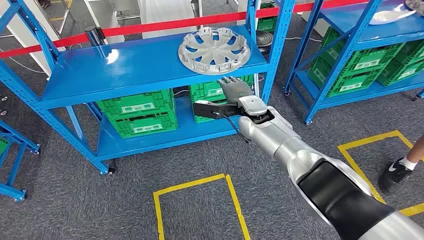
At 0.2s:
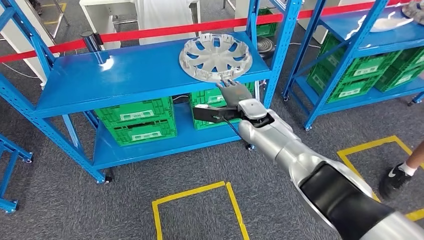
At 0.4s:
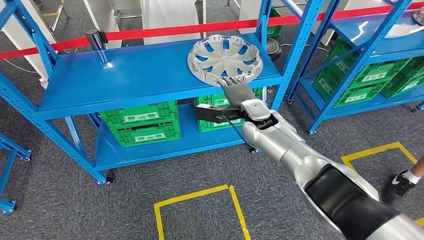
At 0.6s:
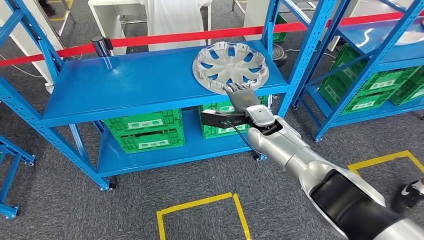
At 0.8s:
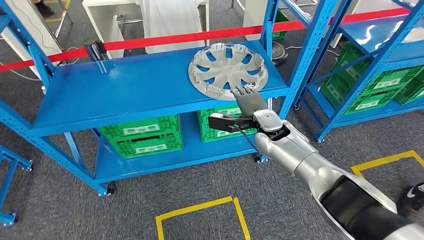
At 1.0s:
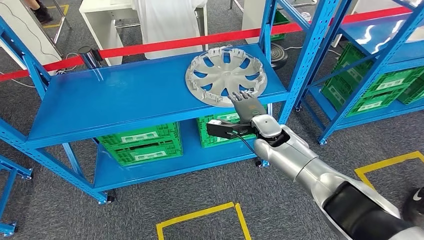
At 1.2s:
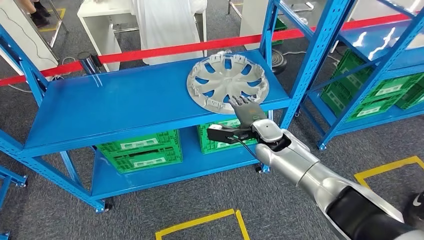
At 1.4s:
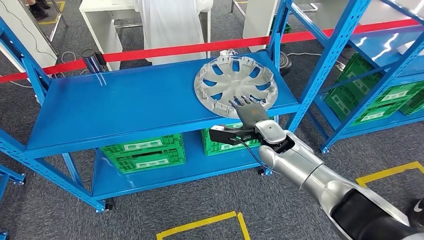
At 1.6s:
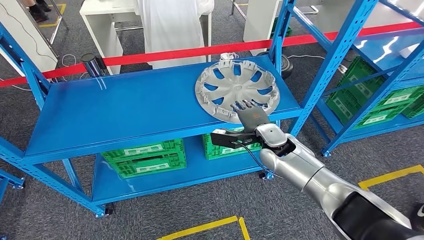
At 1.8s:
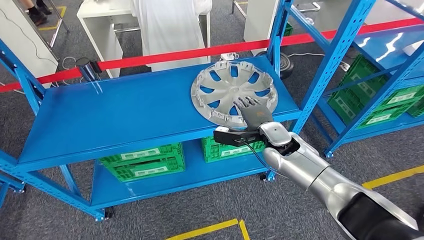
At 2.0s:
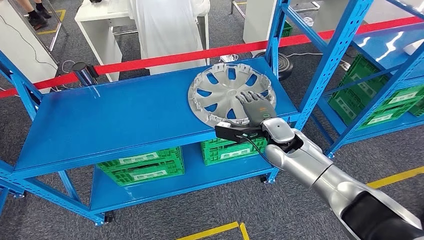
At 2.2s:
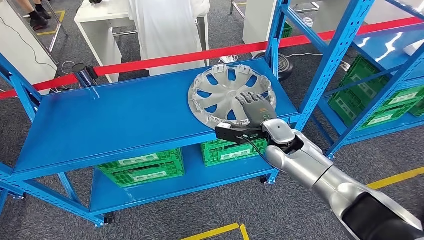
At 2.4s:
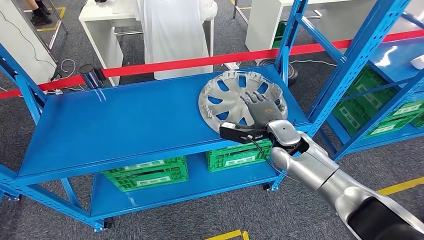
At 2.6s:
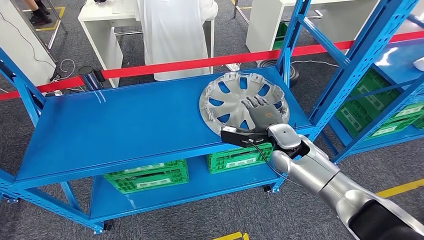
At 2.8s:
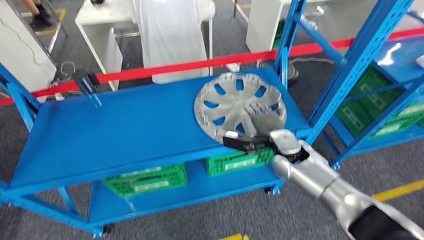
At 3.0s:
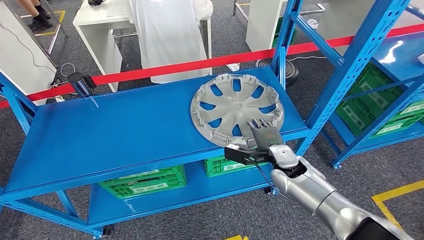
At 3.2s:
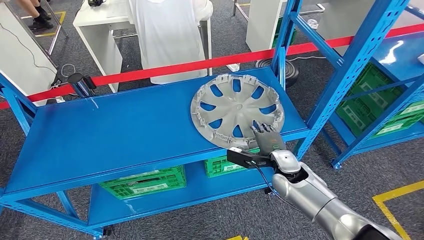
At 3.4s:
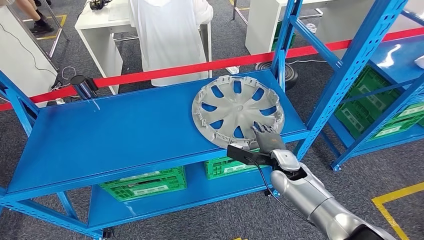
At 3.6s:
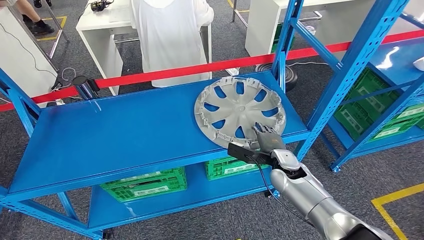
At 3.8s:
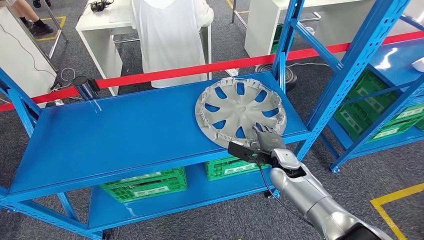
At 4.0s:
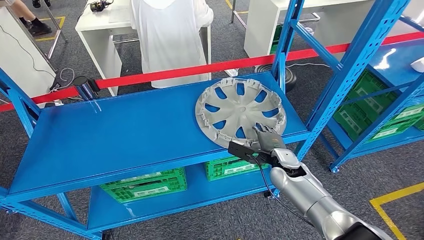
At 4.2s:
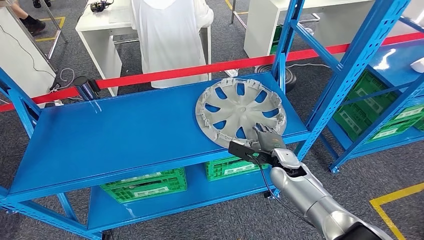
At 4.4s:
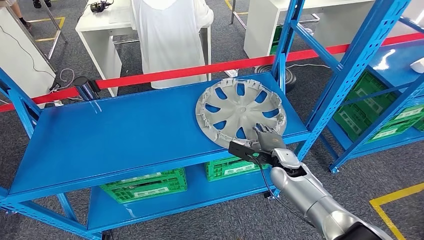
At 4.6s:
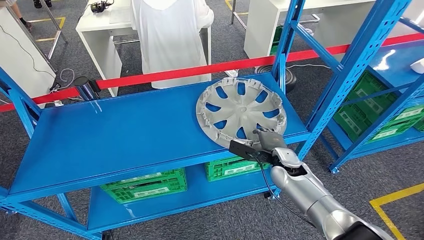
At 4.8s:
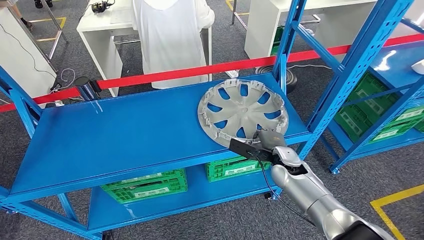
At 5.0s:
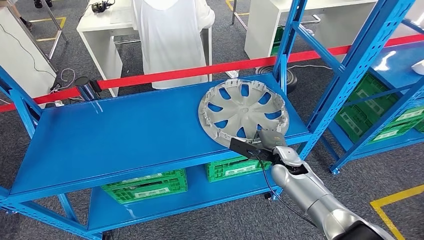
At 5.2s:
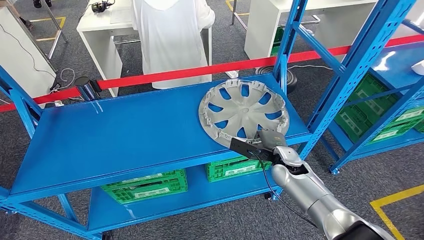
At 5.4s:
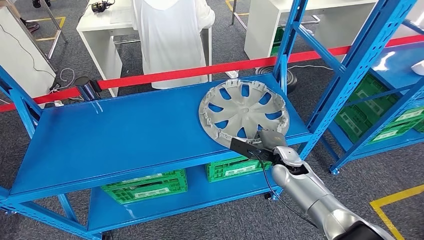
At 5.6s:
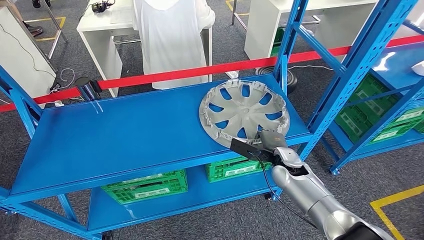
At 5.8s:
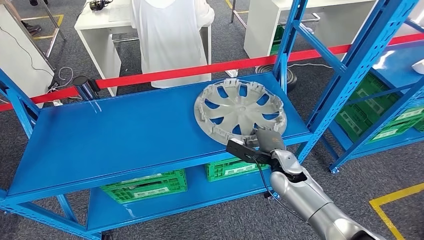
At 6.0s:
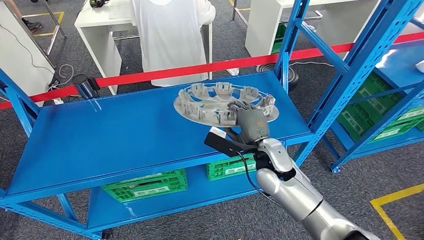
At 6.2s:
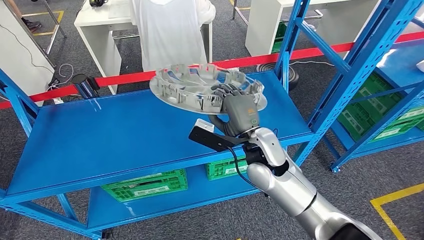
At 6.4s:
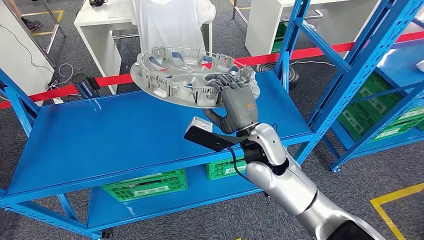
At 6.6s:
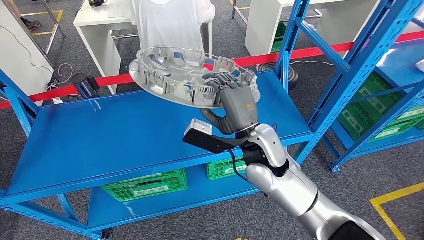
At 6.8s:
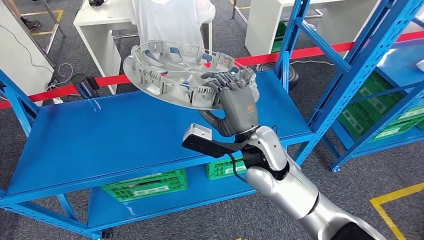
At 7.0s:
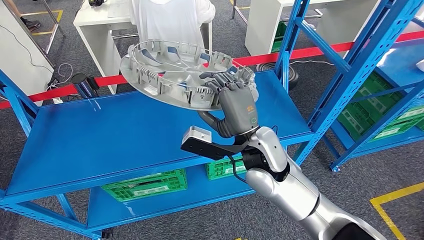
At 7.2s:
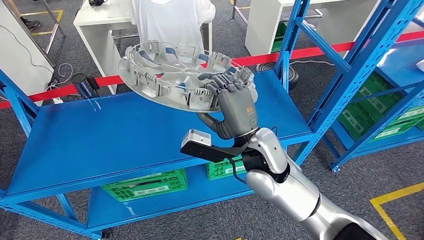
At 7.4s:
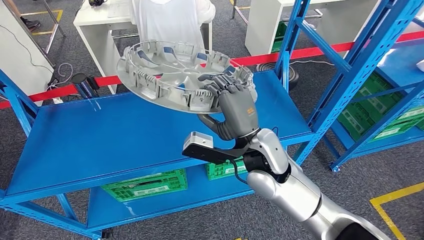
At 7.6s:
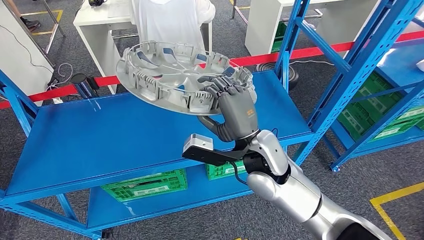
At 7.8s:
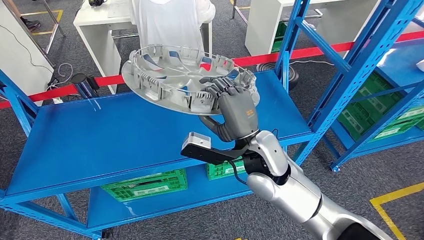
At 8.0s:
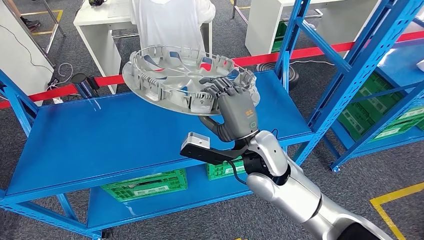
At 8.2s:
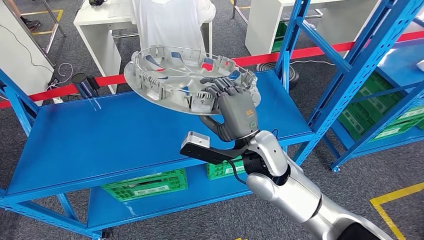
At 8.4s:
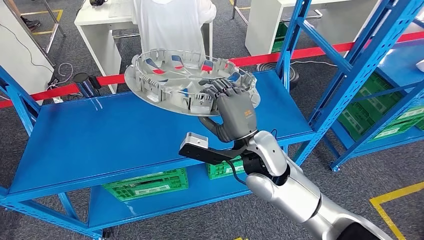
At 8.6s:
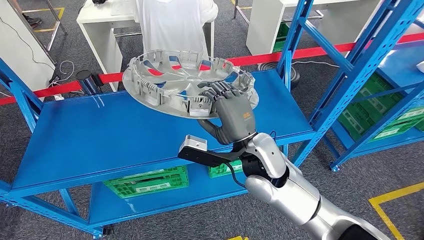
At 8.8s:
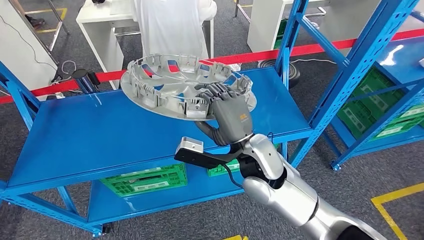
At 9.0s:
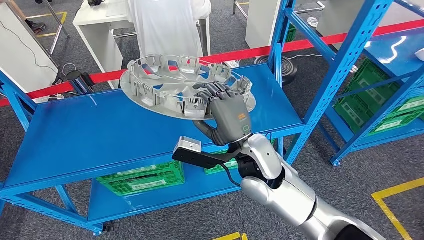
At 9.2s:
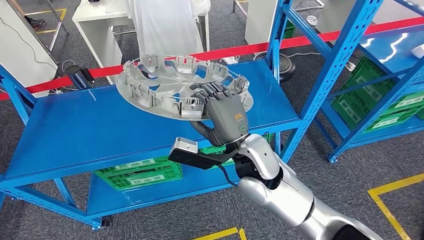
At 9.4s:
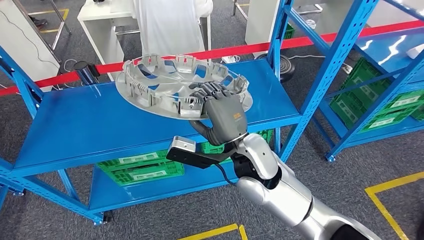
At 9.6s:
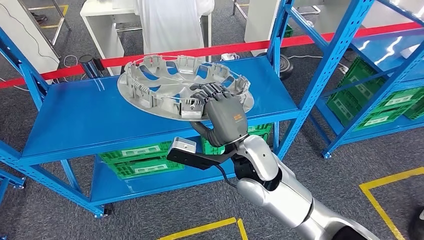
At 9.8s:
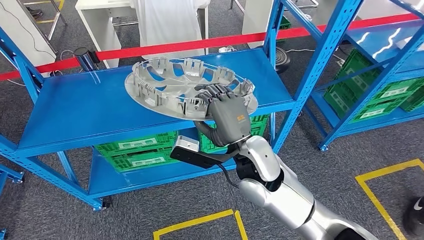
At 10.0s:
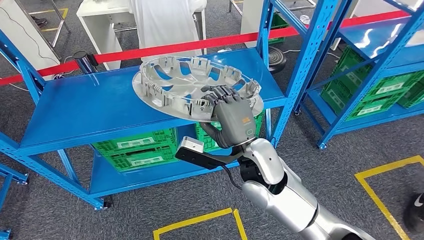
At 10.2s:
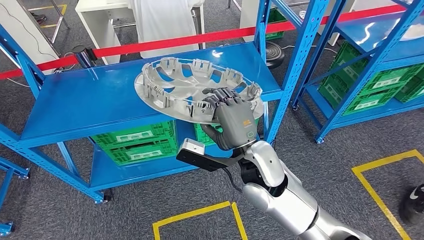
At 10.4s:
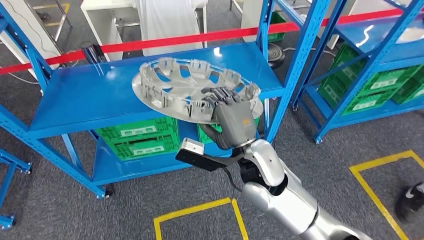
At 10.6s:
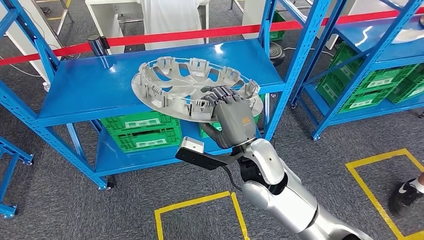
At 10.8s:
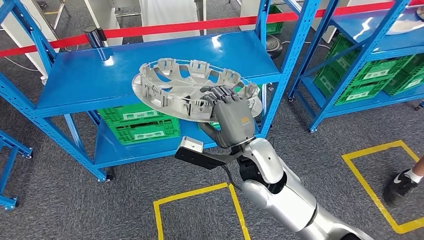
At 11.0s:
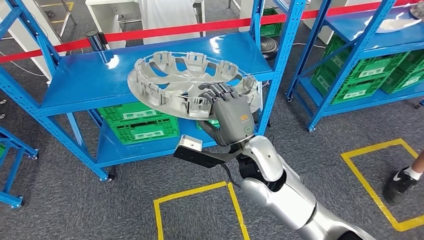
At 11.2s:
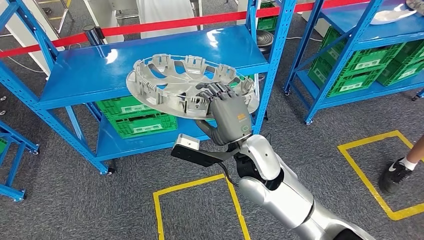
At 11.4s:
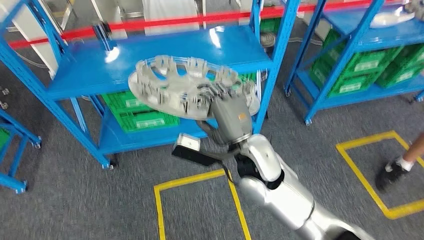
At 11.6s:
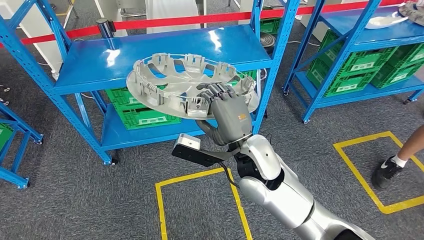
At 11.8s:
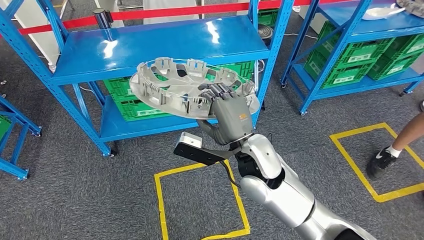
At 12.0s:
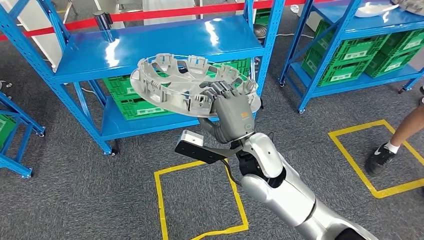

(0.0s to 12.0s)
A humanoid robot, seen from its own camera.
Step, 0.0s - 7.2s: Take small components from the rack.
6.0s - 7.6s: The right hand travels upward and to the left by roughly 10 cm.

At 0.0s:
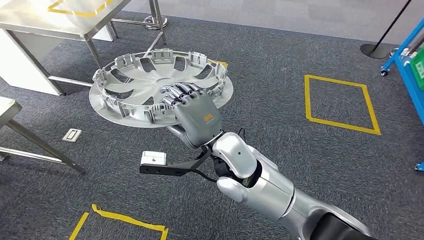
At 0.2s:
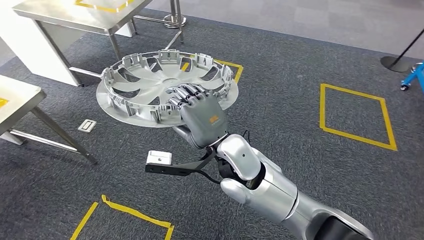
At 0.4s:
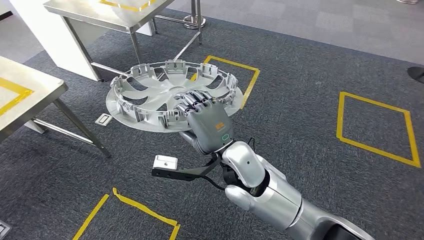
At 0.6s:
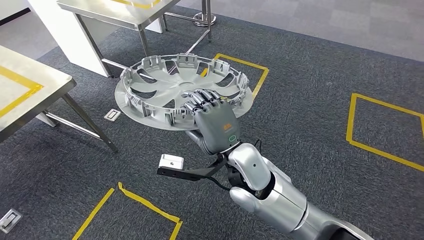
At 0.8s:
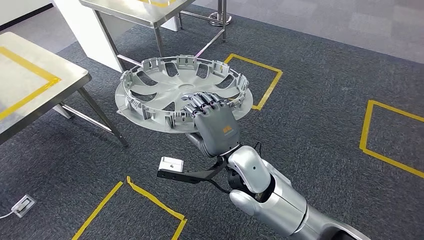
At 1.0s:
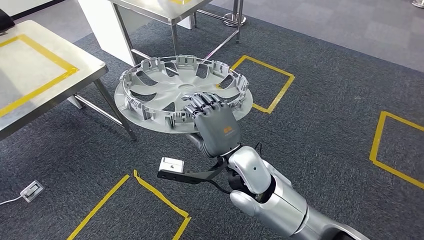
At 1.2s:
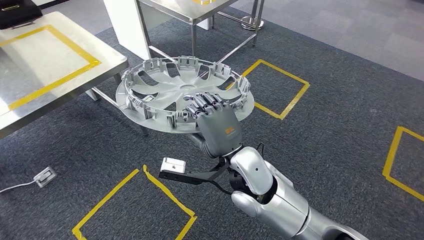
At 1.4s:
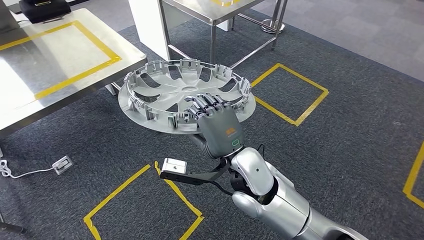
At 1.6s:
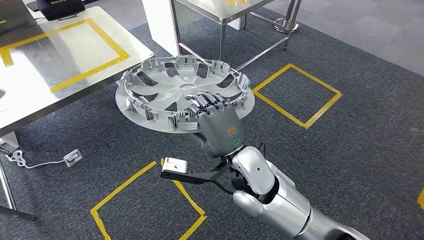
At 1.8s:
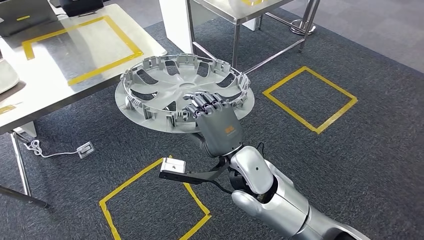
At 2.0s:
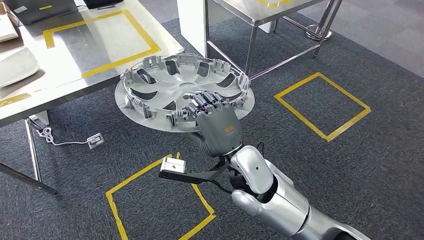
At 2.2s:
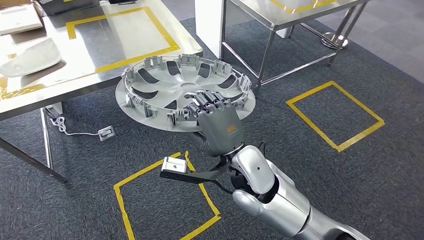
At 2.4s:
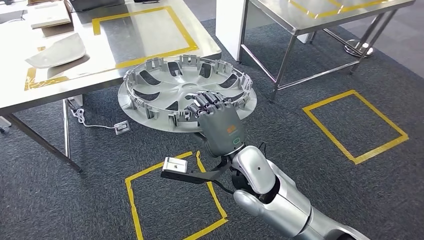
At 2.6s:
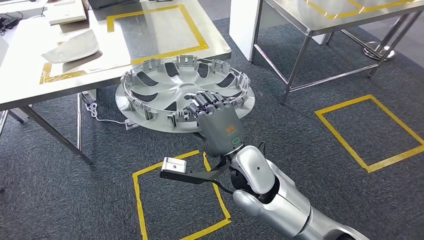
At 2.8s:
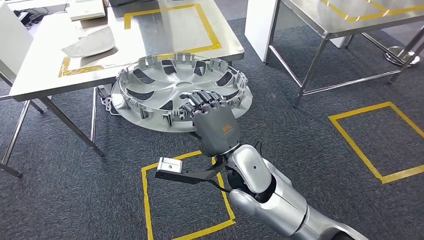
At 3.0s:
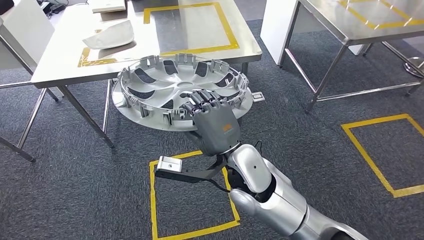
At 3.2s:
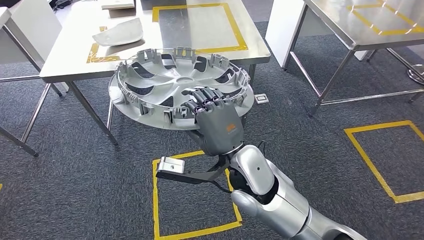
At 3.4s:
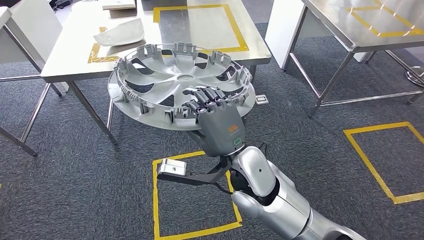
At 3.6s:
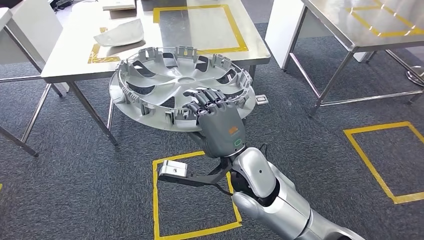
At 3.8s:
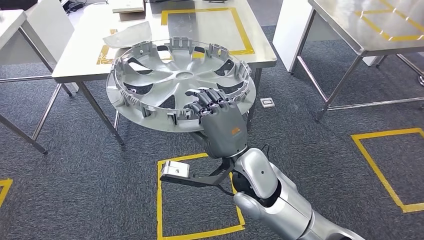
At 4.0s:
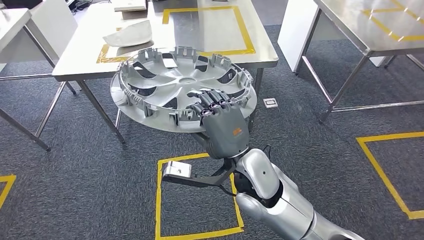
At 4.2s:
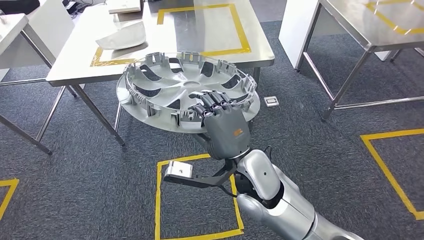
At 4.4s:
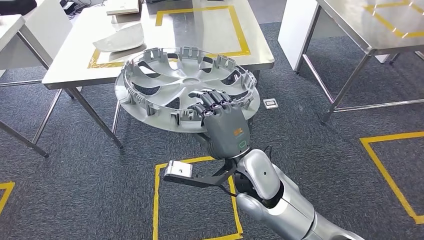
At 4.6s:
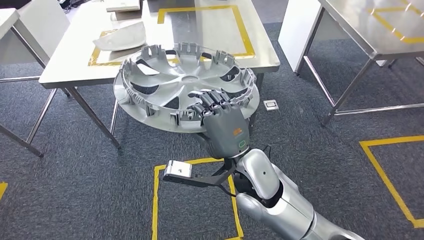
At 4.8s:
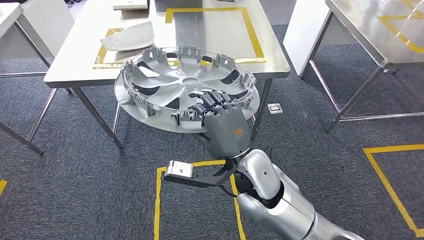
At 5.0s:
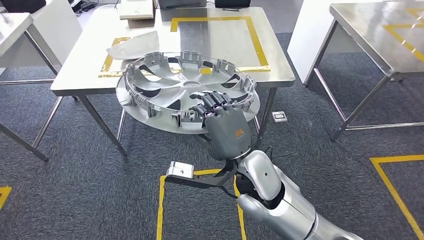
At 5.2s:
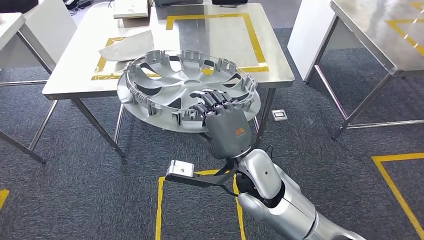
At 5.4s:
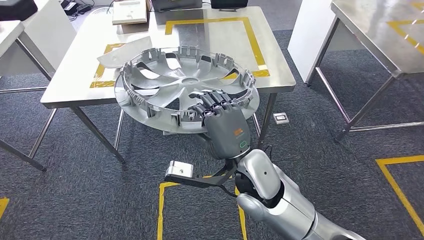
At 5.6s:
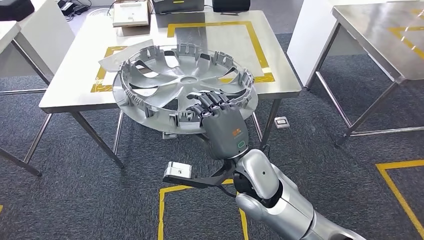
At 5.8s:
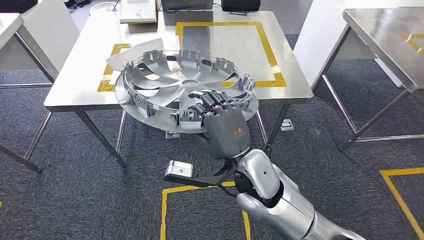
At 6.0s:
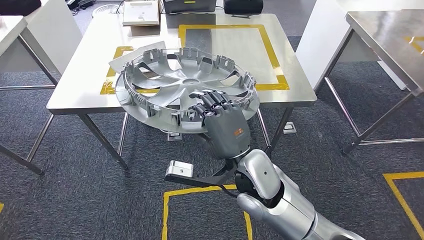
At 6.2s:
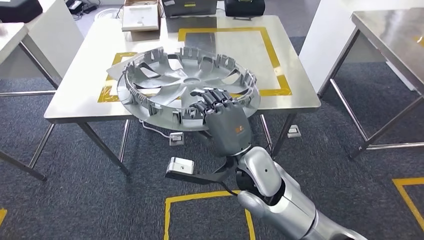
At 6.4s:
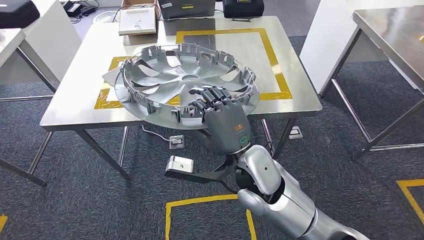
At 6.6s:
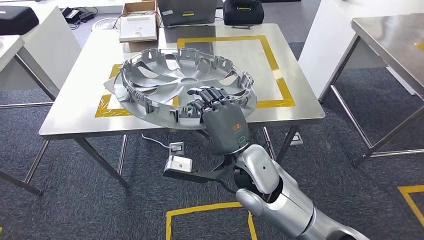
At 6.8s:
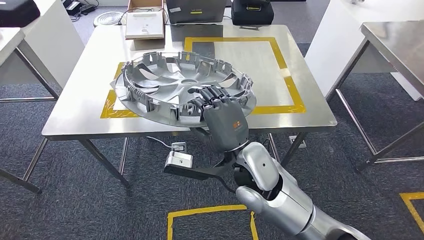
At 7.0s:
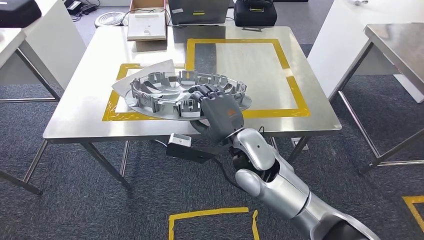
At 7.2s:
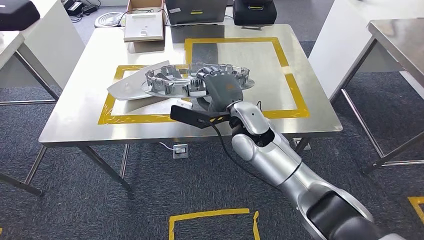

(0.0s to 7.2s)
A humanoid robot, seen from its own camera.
Step, 0.0s - 3.2s: Move the small parts to the workbench.
